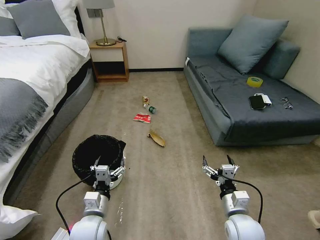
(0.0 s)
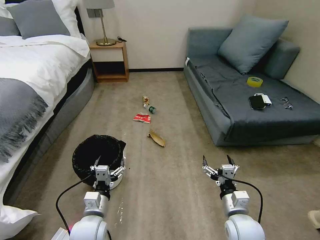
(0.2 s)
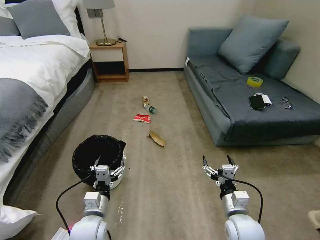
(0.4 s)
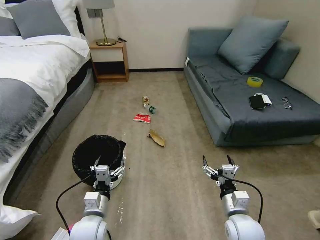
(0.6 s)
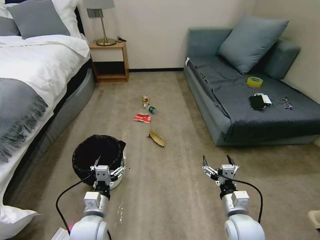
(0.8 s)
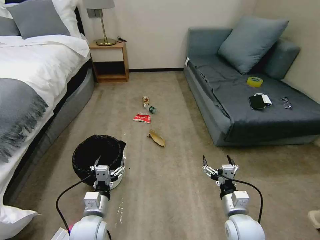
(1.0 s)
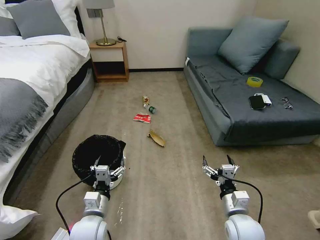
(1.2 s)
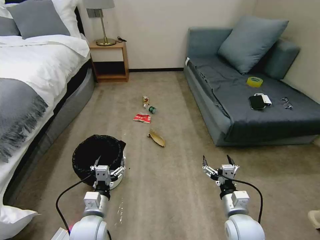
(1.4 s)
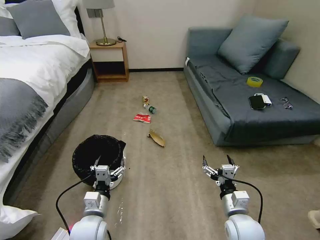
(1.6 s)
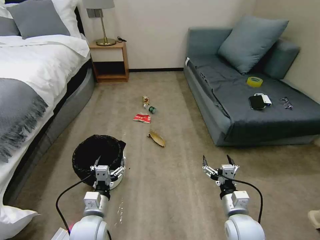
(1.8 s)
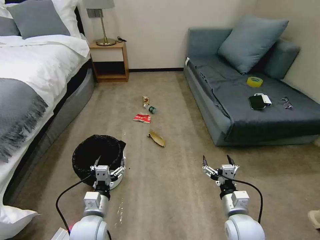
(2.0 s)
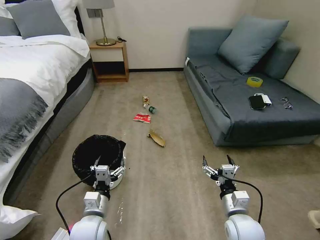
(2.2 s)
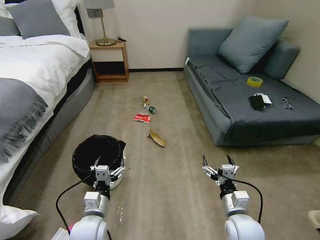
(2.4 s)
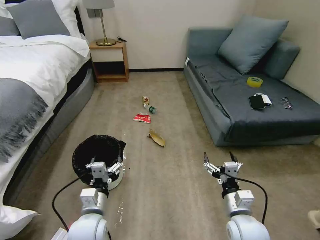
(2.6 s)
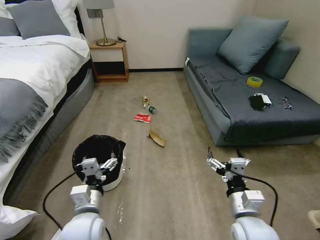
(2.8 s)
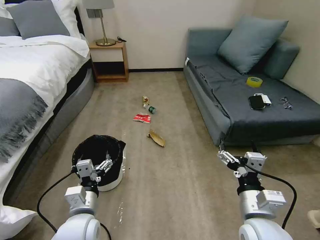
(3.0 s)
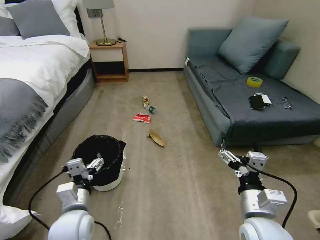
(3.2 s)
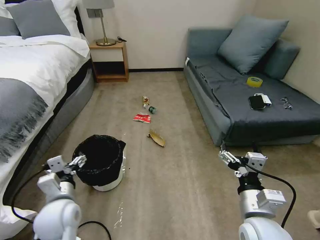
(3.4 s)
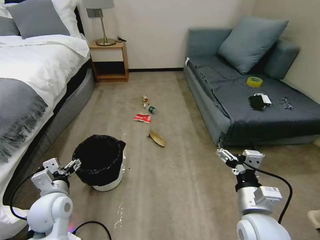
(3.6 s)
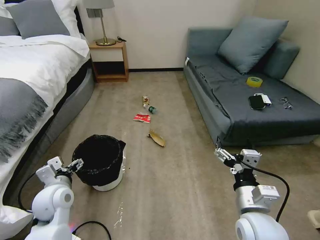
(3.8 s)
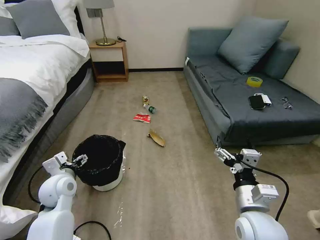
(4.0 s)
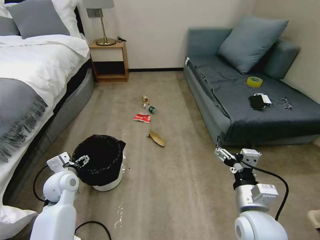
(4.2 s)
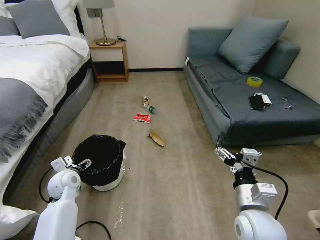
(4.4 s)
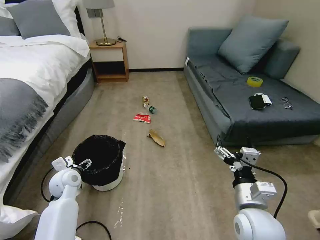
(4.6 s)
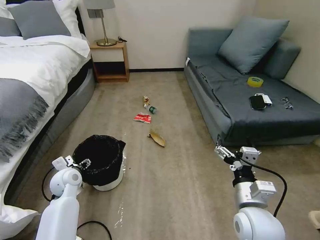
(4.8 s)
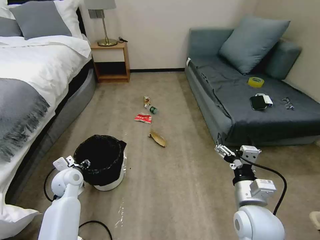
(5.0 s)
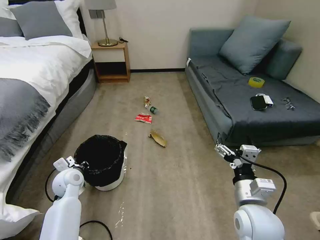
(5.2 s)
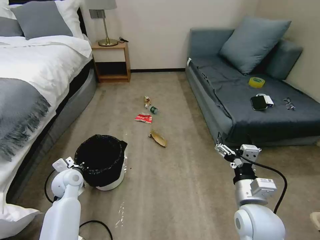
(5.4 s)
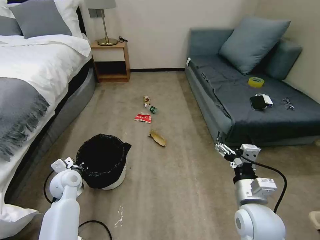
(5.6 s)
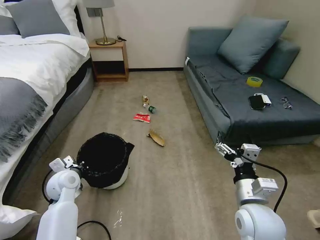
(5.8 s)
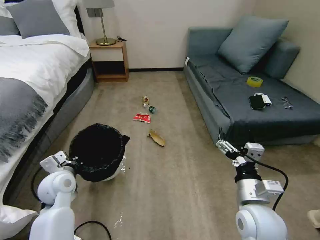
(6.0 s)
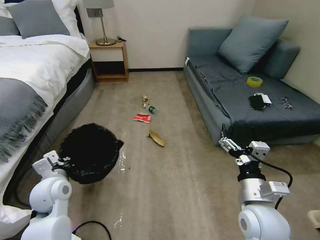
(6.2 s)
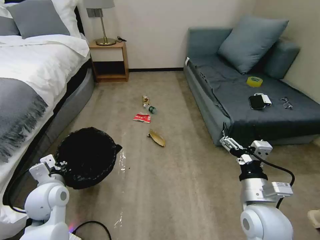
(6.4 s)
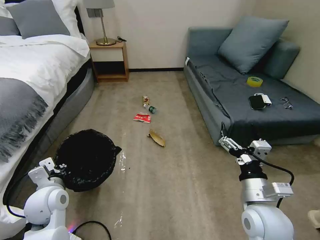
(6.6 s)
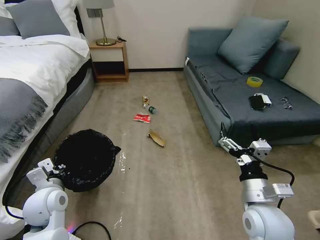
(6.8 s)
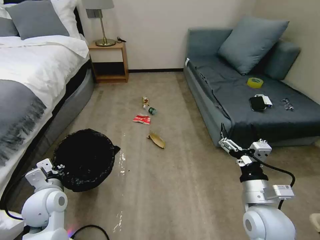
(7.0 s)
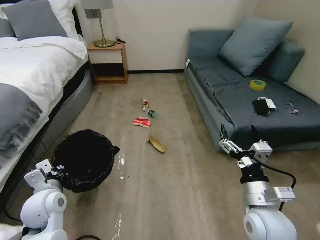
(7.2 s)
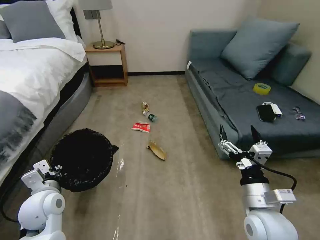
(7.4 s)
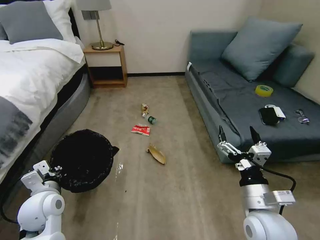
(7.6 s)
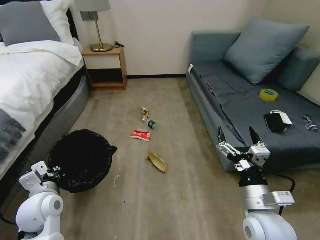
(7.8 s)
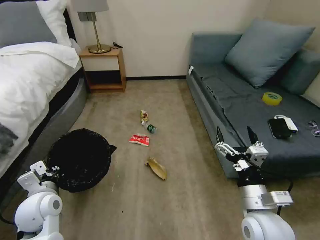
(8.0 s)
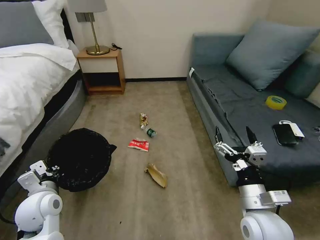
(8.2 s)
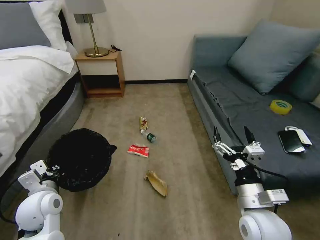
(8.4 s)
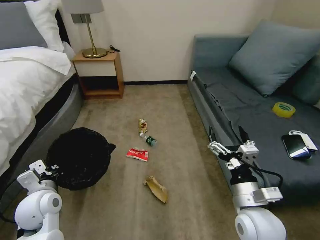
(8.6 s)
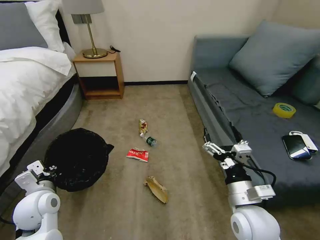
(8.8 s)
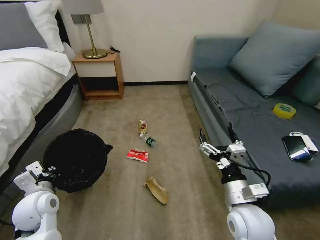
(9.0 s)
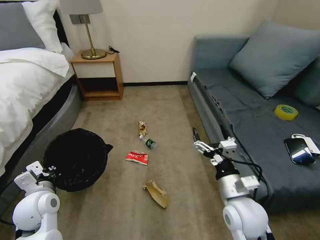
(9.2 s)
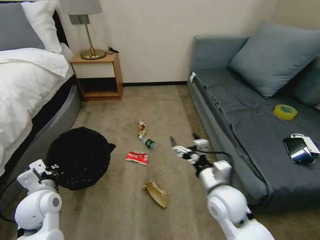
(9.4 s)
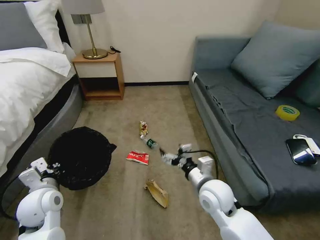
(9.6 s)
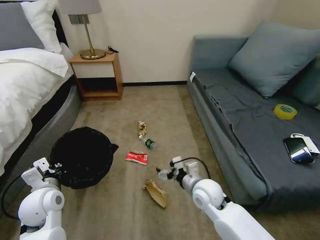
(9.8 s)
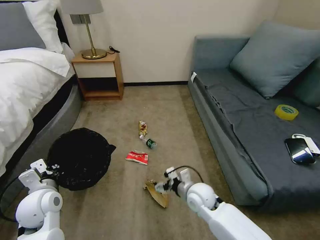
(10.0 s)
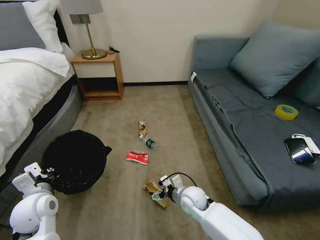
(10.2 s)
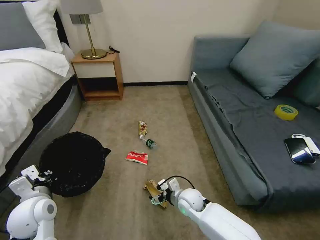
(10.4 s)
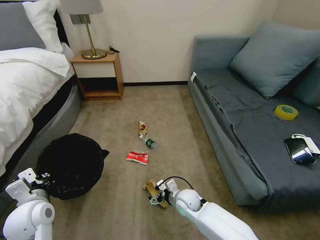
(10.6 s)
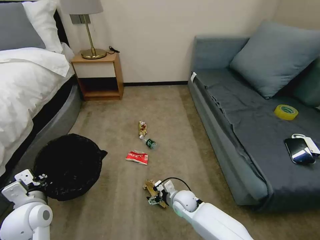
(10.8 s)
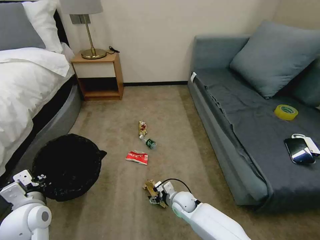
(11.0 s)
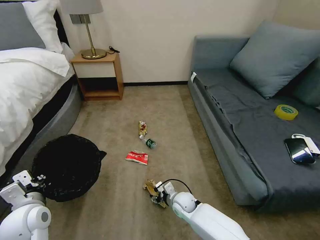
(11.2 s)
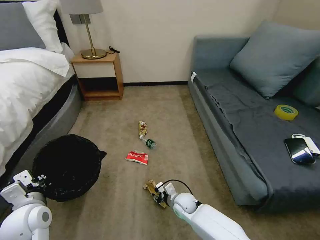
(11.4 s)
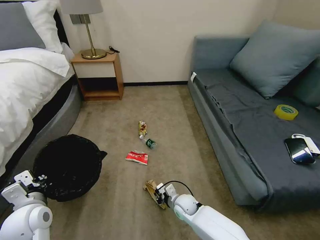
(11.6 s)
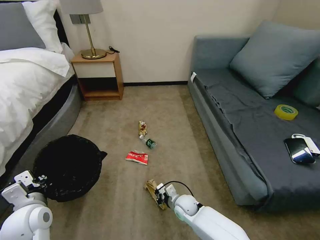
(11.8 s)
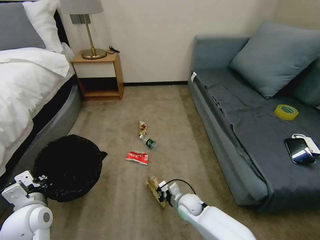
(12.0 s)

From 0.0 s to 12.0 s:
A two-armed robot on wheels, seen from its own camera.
Task of the whole recording: Pick up the trash bin, then pick up the garbage on the floor and place it into the trash bin.
From 1.6 s to 3.0 s: The left gripper heads upward, covering about 5 cm. The right gripper is displaced upward by about 10 cm.
From 3.0 s to 4.4 s: The left gripper is displaced forward and to the left by some 20 cm.
From 4.4 s to 6.0 s: The left gripper shifts about 5 cm upward, and closes up.
From 6.0 s to 7.6 s: The left gripper travels backward by roughly 5 cm.
From 9.0 s to 10.4 s: The right gripper shifts roughly 25 cm downward, forward and to the left.
From 10.4 s to 12.0 s: The right gripper closes its fingers.

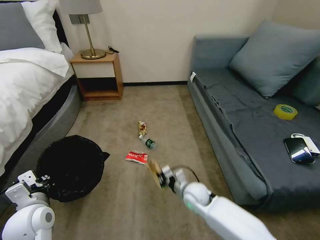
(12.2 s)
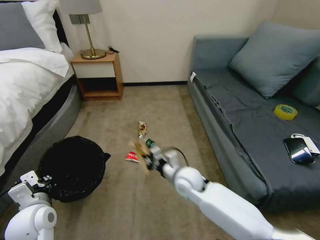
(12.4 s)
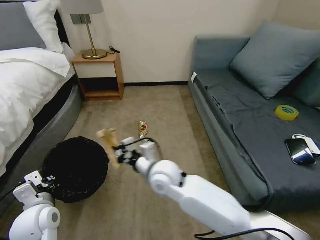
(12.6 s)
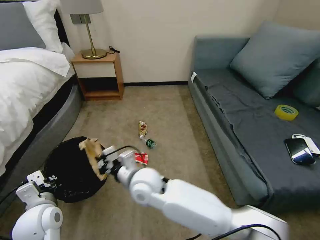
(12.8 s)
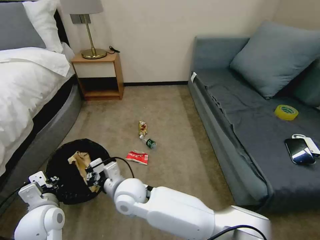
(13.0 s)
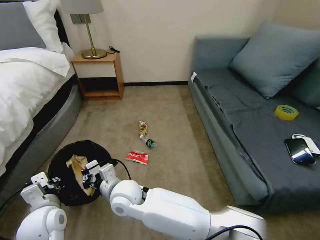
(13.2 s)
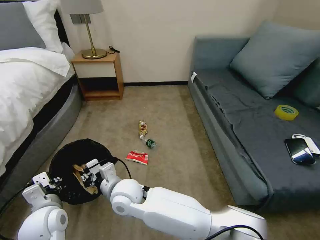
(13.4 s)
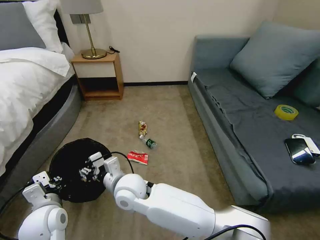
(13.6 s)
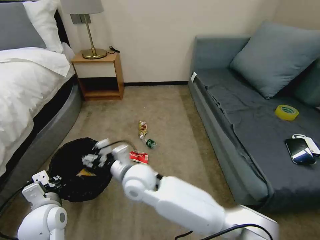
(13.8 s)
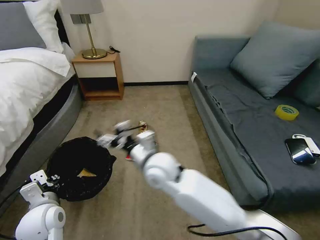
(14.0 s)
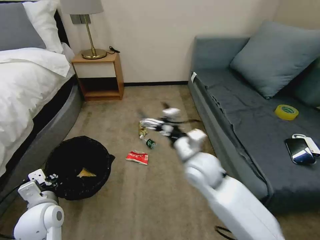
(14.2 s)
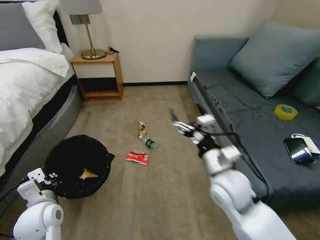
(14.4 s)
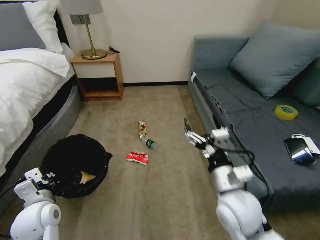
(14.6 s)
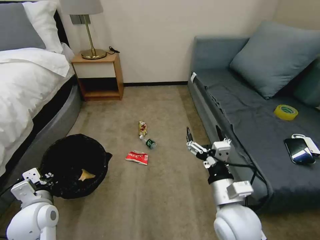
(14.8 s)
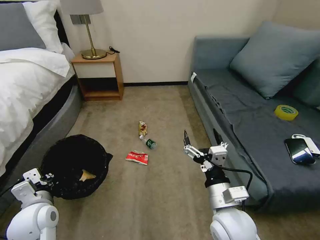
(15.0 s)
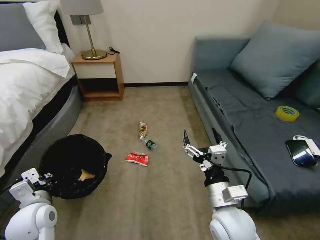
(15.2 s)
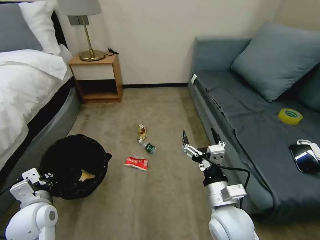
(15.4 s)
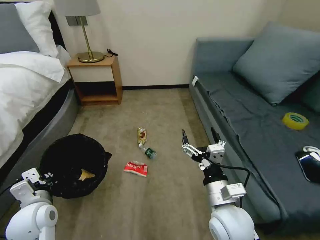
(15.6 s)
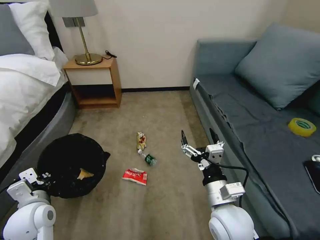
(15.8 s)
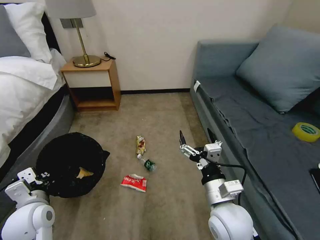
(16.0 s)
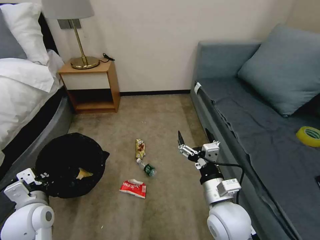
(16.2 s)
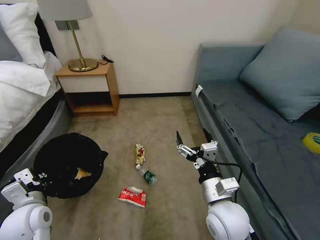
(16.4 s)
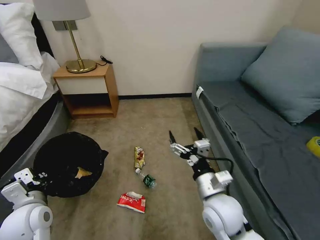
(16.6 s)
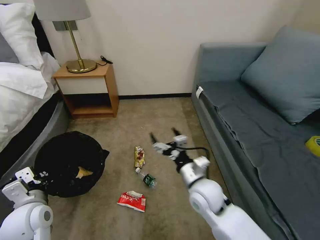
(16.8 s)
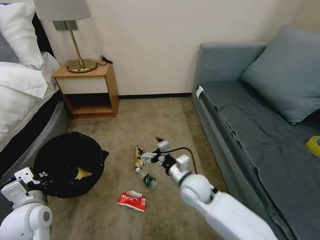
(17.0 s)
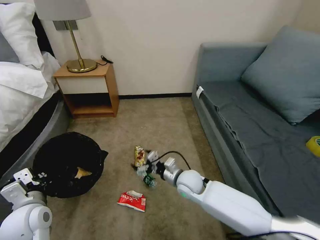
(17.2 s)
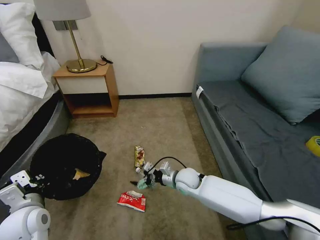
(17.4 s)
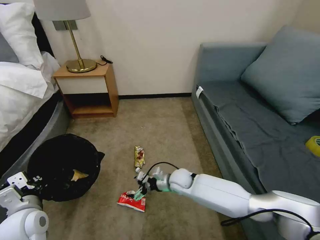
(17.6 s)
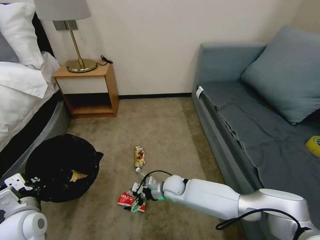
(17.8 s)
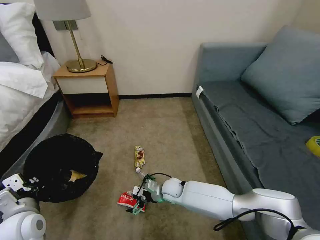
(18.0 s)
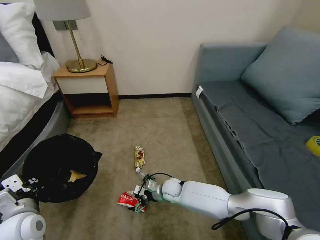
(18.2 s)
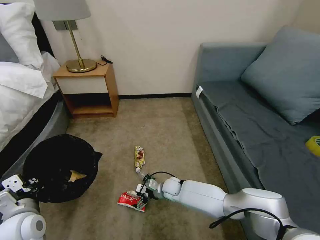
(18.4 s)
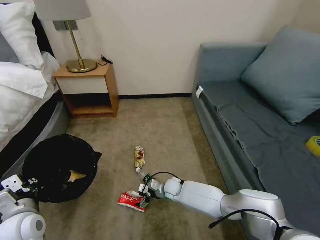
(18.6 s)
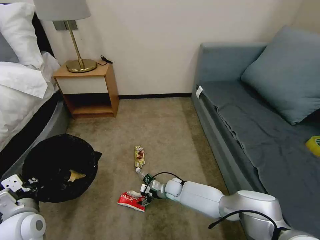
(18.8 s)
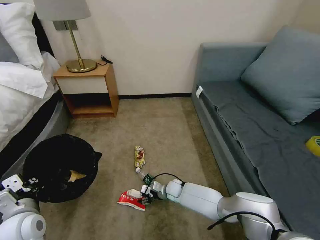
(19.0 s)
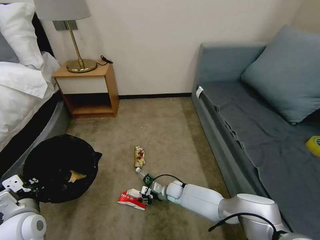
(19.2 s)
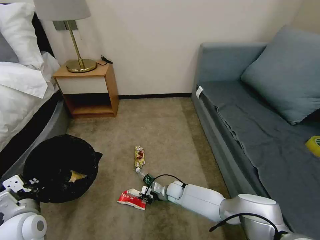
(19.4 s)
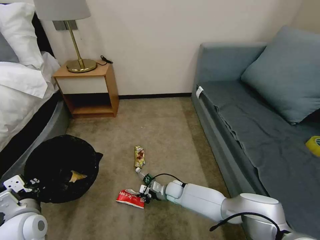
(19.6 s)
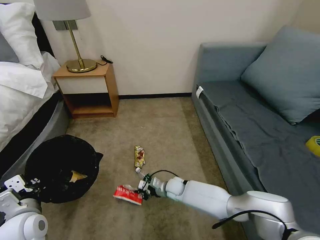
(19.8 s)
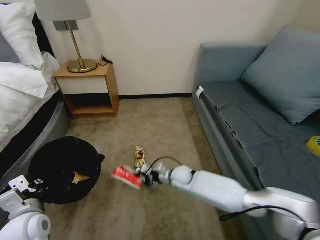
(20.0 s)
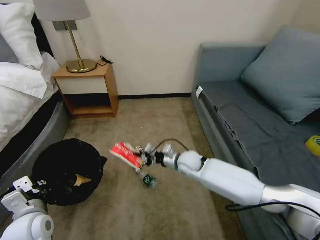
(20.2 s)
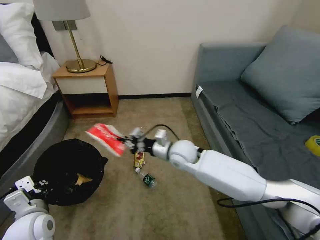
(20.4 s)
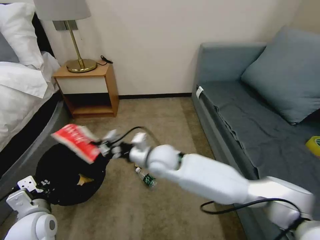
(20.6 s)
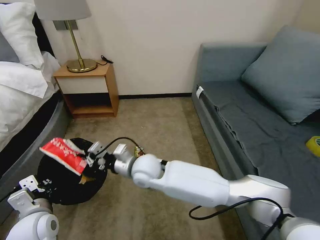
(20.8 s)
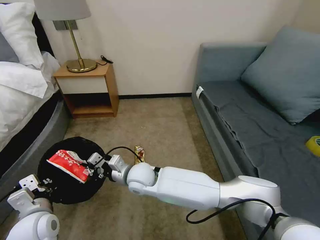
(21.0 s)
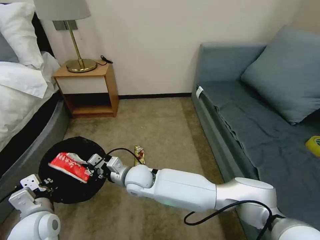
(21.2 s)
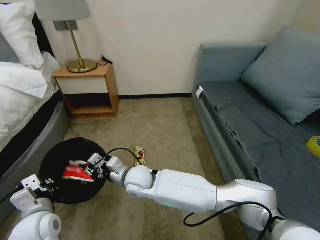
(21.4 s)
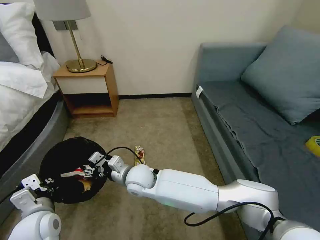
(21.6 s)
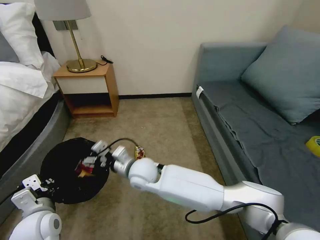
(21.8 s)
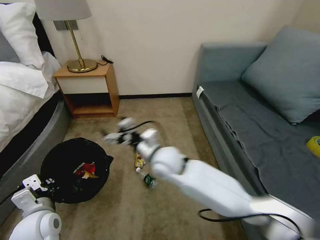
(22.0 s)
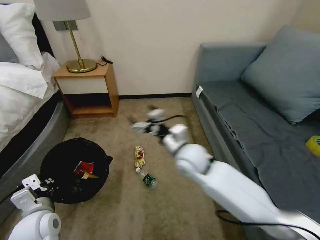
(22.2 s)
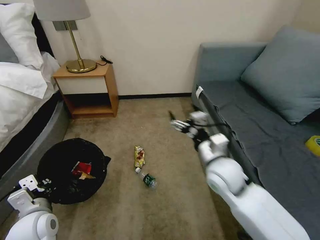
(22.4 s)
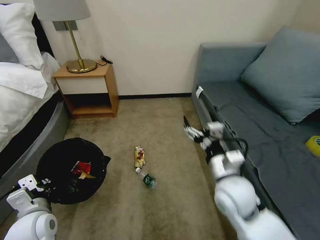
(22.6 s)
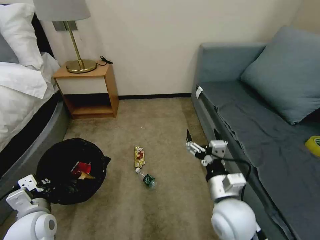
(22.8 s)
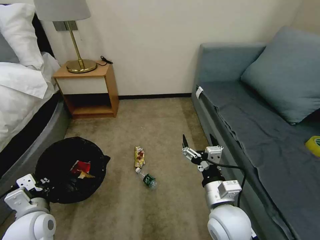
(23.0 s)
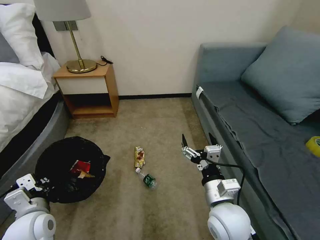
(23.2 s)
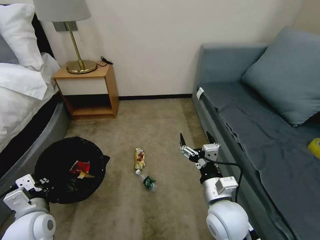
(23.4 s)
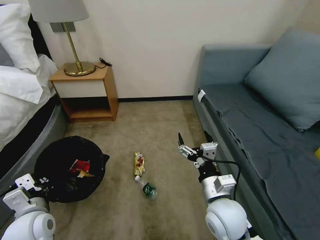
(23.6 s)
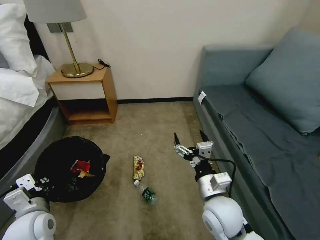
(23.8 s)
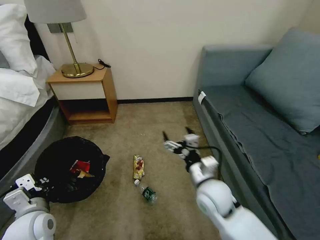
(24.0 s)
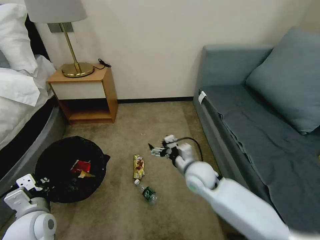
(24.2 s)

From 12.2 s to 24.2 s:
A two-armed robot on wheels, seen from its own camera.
Task of the whole recording: Pick up the trash bin, then pick up the garbage on the floor and place it into the trash bin.
From 12.2 s to 13.8 s: The right gripper moves to the left and upward, about 25 cm, and opens its fingers.
From 13.8 s to 15.2 s: The right gripper goes about 25 cm to the right and backward.
From 16.6 s to 18.2 s: The right gripper goes some 30 cm downward, forward and to the left.
From 18.2 s to 19.8 s: The right gripper closes.
From 19.8 s to 21.2 s: The right gripper travels upward and to the left by approximately 25 cm.
From 21.2 s to 22.6 s: The right gripper is displaced to the right by about 25 cm, and opens its fingers.
From 22.6 s to 24.2 s: The right gripper shifts roughly 10 cm forward, to the left and downward.
